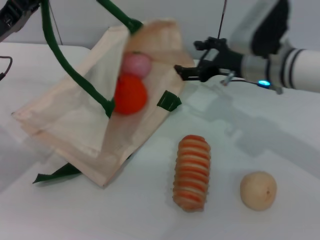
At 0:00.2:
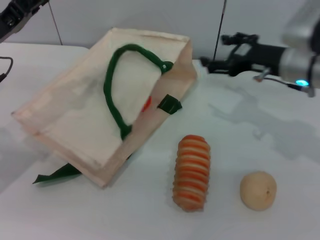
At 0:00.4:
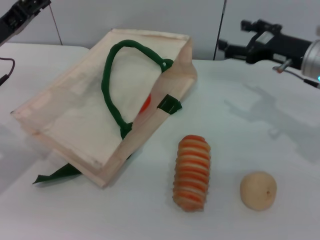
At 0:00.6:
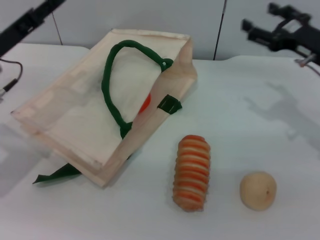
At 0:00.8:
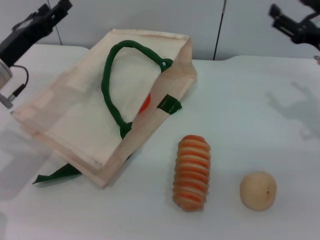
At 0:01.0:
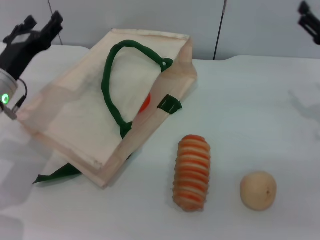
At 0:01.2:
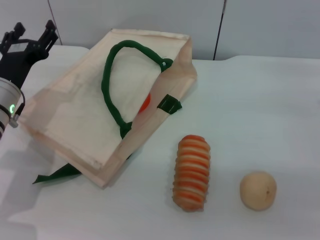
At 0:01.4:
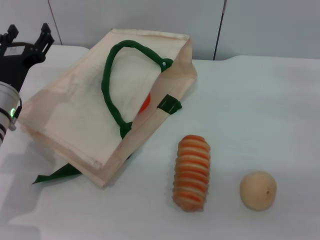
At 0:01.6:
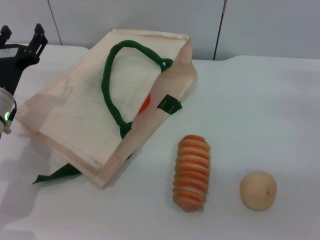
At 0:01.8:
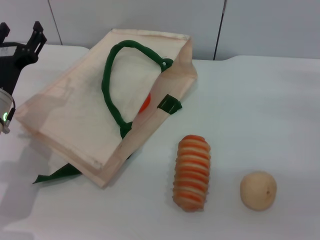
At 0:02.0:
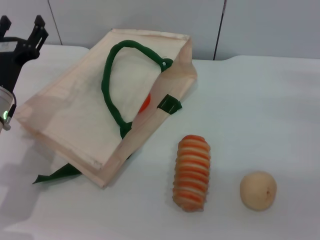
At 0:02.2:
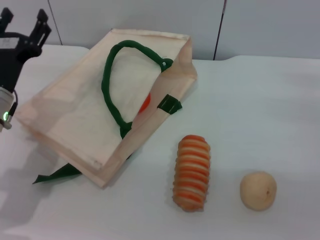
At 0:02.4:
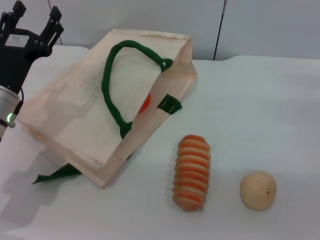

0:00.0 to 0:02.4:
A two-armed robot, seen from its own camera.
Task of the whole recording: pick up the orange and peach from the table and place it in the white handbag.
0:00.0 to 0:01.2: The right gripper shifts about 20 cm to the right and backward, while the left gripper goes roughly 5 cm downward, and opens its fingers.
0:01.2 to 0:02.4: The grippers stay close to where they were, moving slightly.
